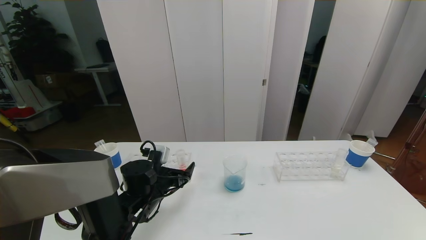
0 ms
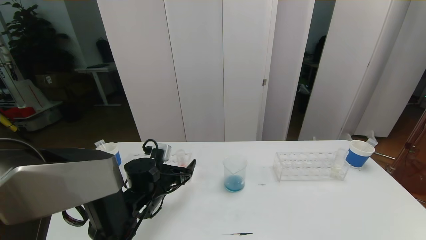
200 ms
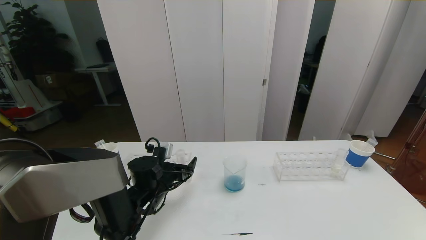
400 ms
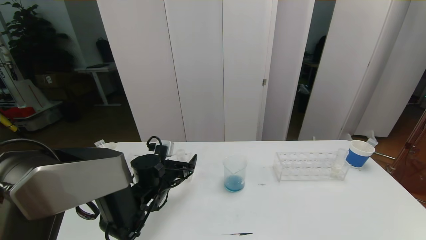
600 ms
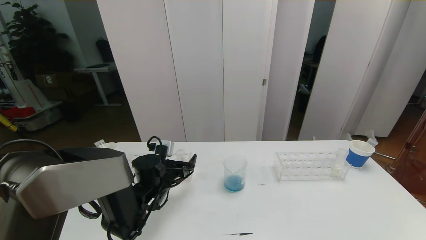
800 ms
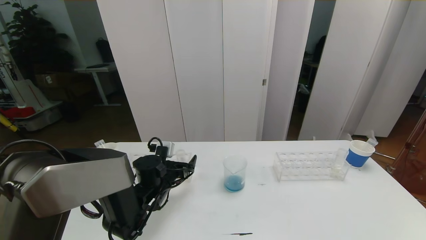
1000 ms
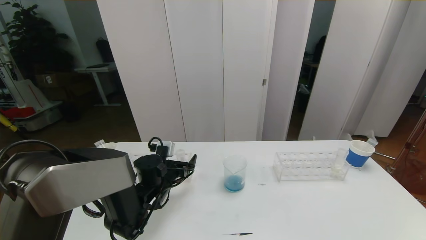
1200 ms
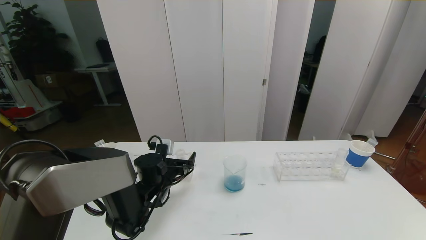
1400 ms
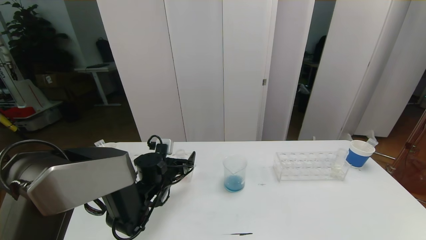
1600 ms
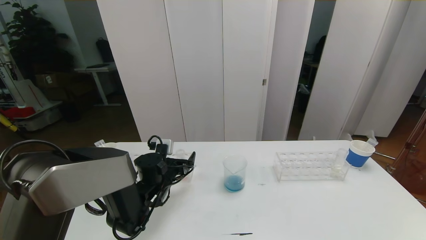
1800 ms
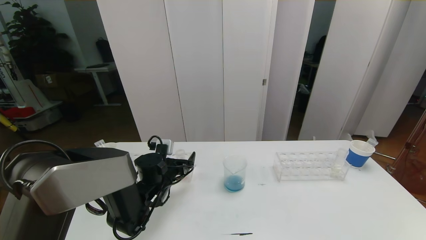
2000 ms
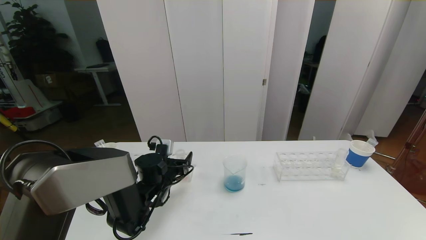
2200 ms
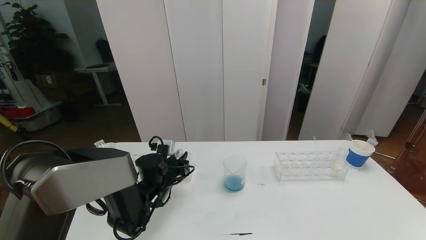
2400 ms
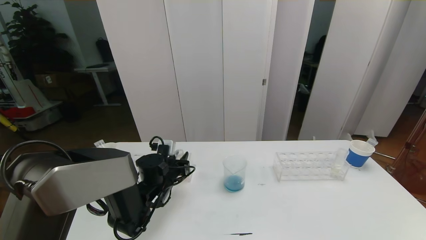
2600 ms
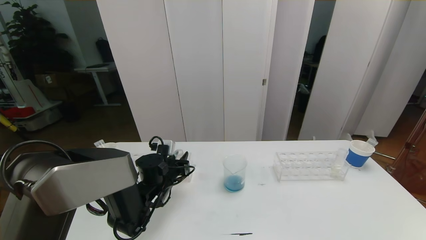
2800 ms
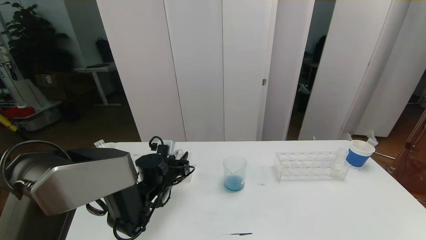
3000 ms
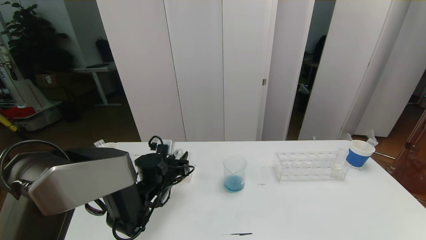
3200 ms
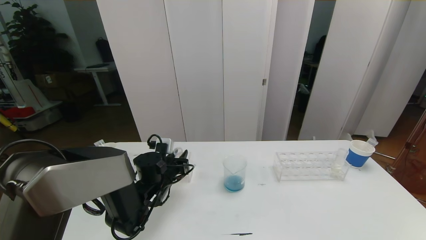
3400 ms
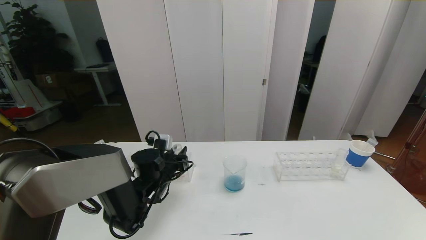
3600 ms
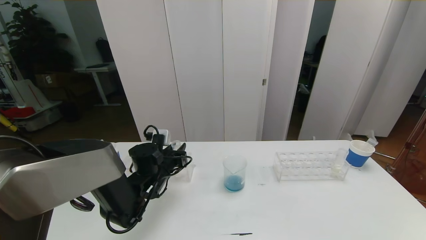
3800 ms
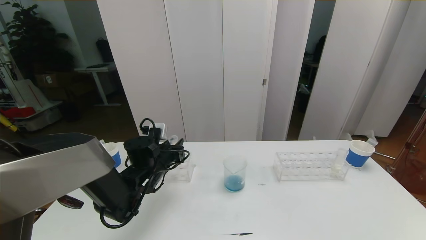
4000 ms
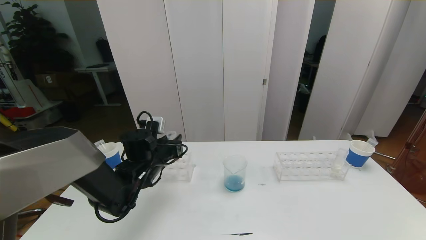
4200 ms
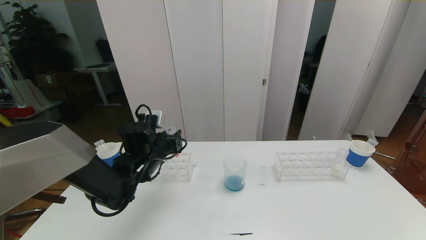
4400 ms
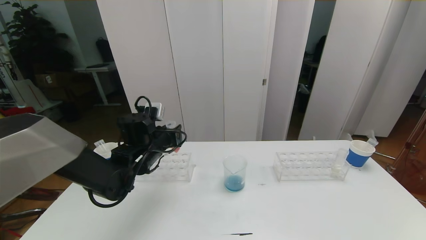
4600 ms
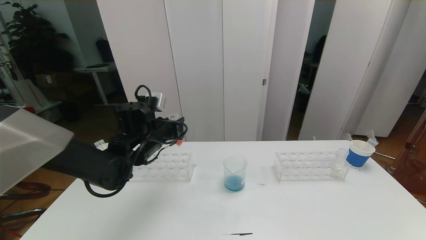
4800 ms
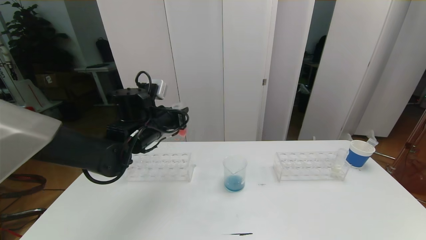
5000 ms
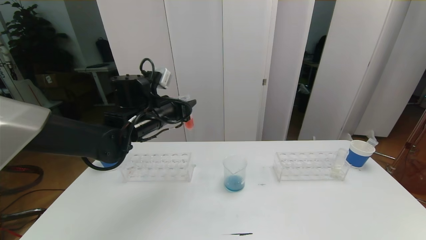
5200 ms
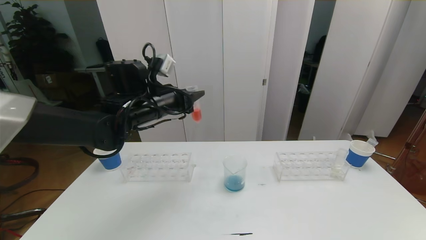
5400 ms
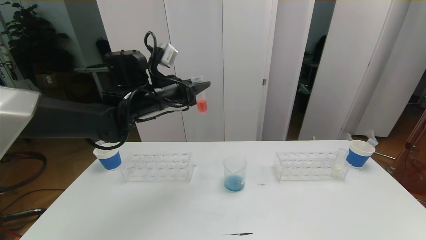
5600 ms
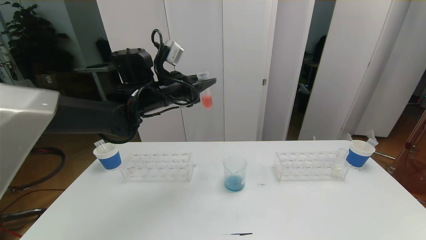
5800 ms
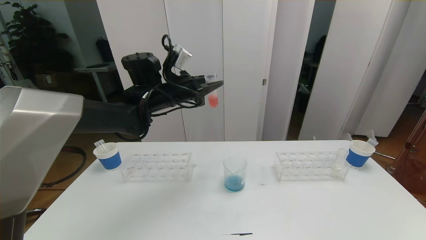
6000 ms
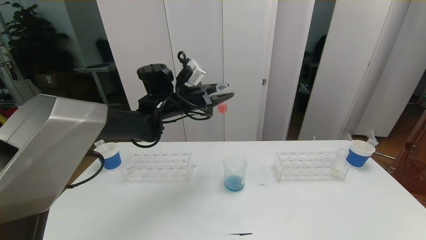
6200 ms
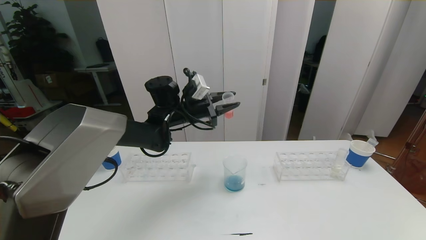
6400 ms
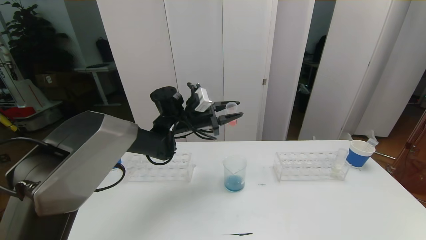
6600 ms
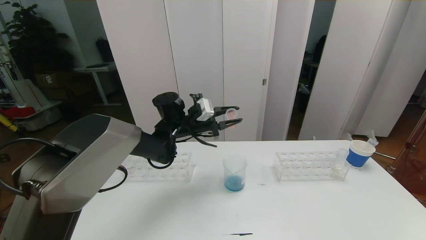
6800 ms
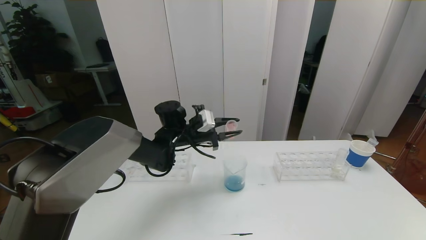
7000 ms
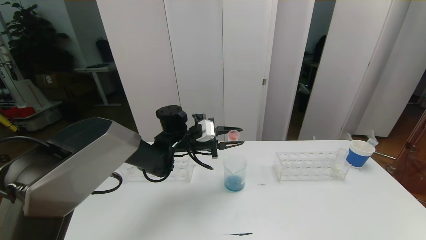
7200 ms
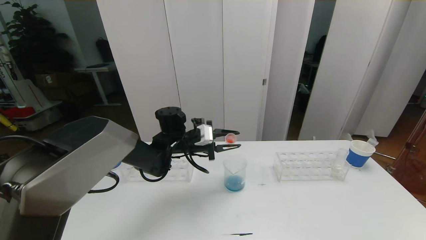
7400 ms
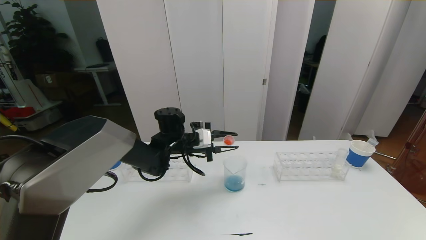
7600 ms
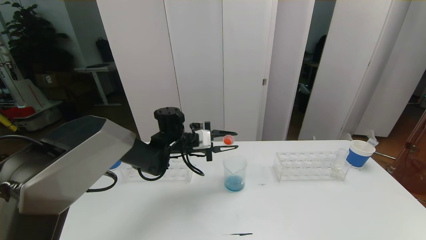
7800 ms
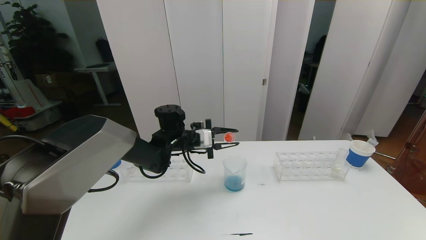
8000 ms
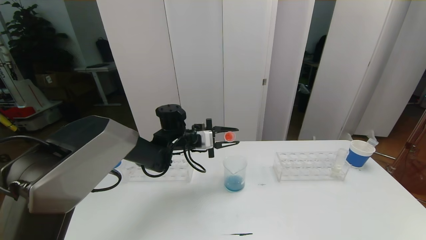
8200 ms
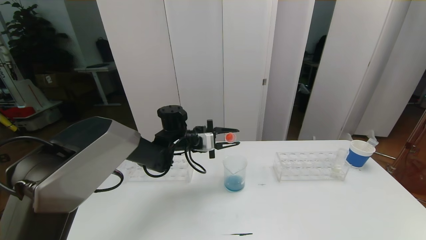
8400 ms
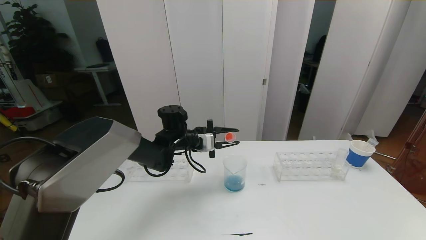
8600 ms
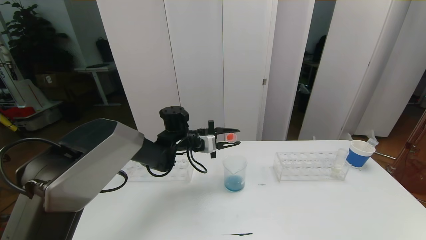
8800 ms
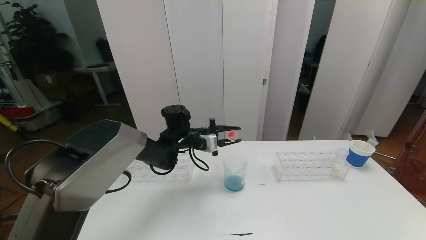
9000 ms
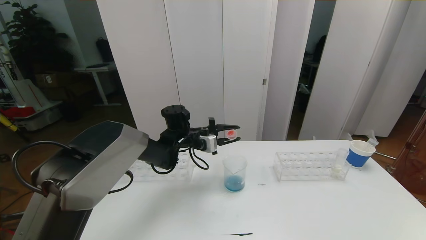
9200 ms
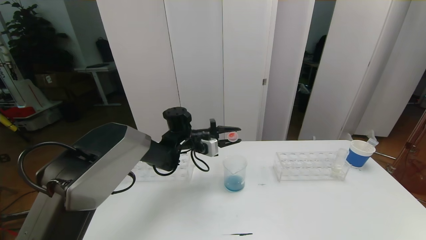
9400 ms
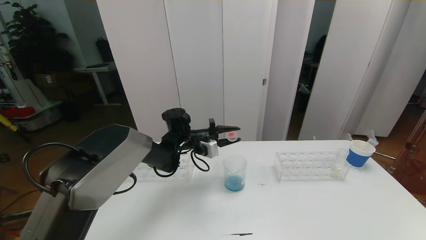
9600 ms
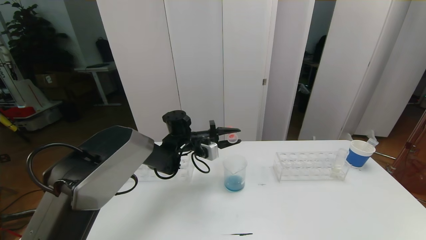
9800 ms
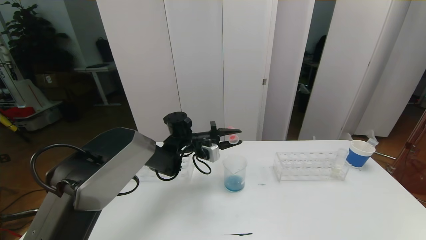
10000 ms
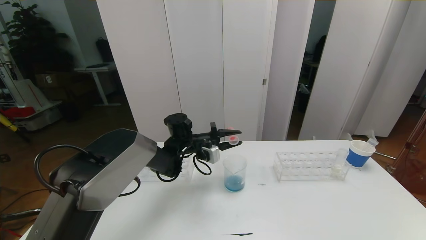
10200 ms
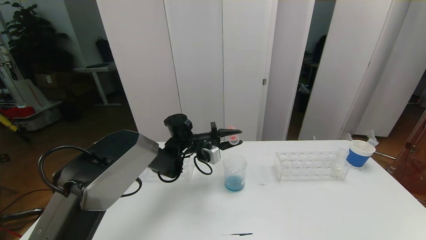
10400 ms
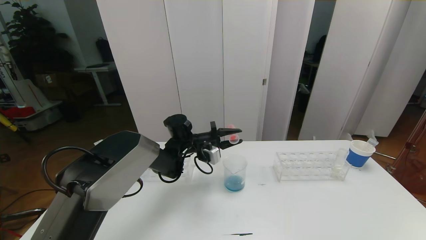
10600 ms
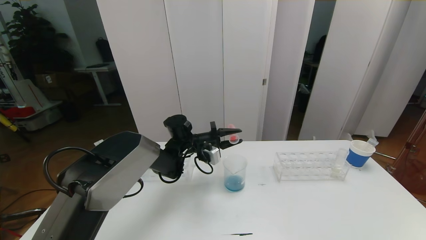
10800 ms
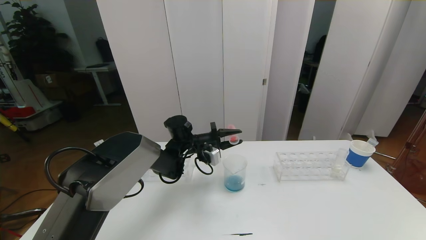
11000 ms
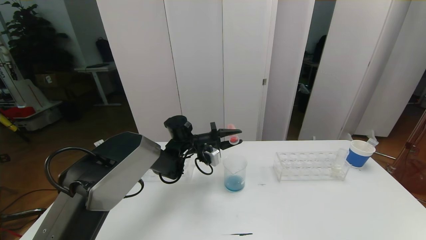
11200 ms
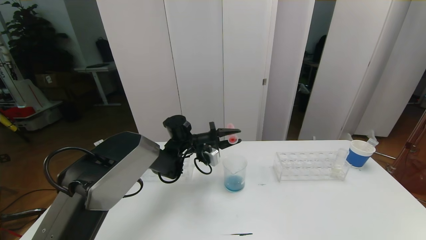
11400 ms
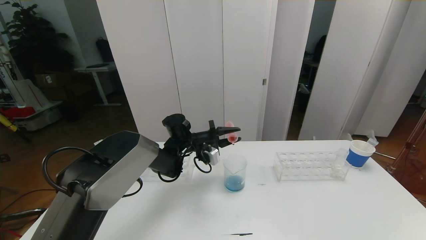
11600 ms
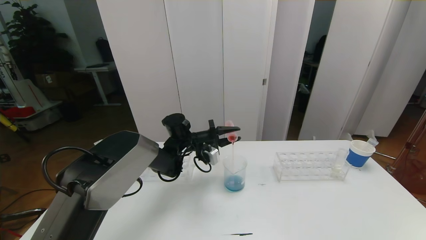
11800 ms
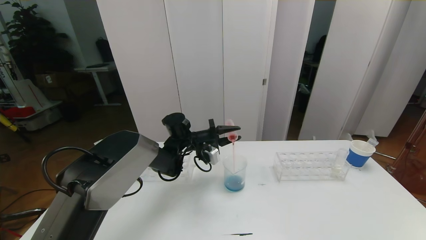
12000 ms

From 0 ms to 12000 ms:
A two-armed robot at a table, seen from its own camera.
Task of the whole recording: pick up the test tube with red pigment the test tube with blue pigment and the test tube with white pigment by grippers and pour them into the beaker.
From 0 ms to 1600 ms: The grippers make only small movements.
From 1600 ms to 3000 ms: The left gripper closes.
From 3000 ms to 4400 ms: The left gripper shifts some 10 cm upward.
From 4400 ms to 6000 ms: The left gripper moves upward and forward, about 15 cm.
From 6000 ms to 7600 ms: The left gripper travels downward by approximately 15 cm.
From 7600 ms to 9000 ms: The grippers make only small movements.
From 9000 ms to 10400 ms: There are only small adjustments of the grippers.
From 10400 ms to 12000 ms: There are only small adjustments of the grippers.

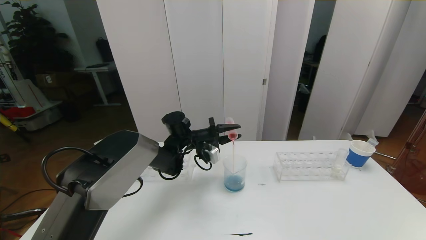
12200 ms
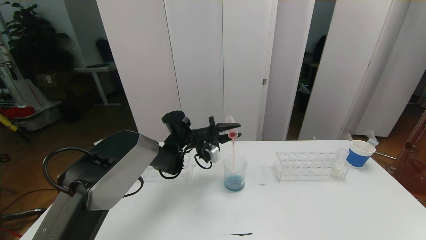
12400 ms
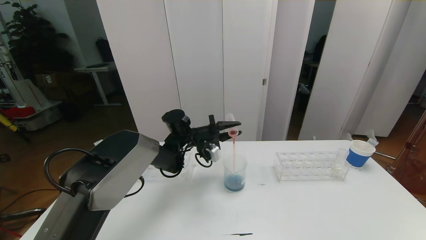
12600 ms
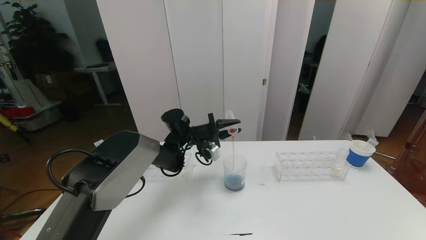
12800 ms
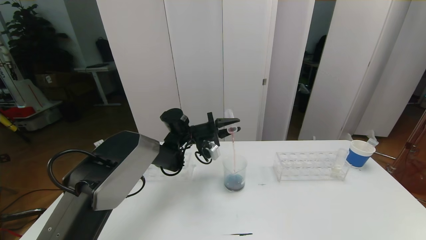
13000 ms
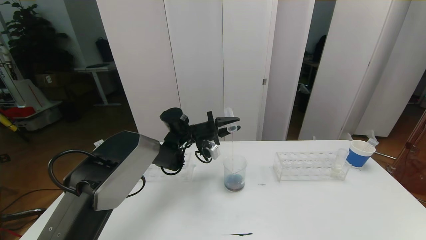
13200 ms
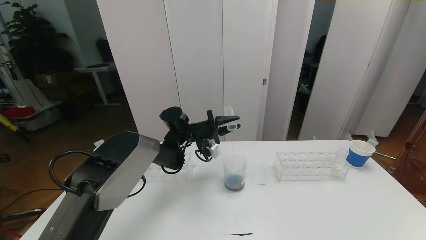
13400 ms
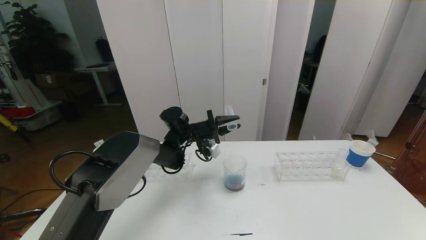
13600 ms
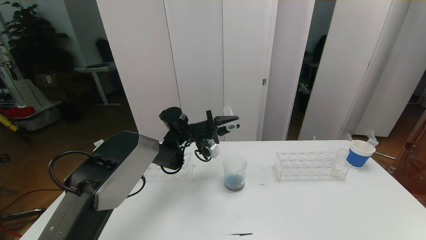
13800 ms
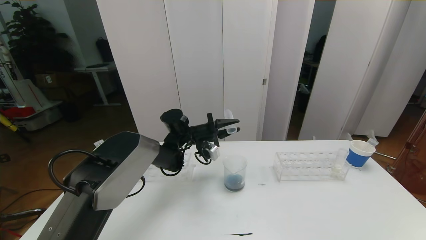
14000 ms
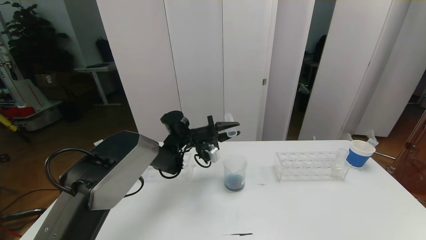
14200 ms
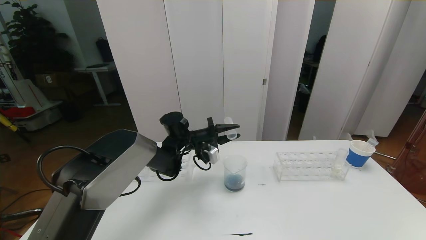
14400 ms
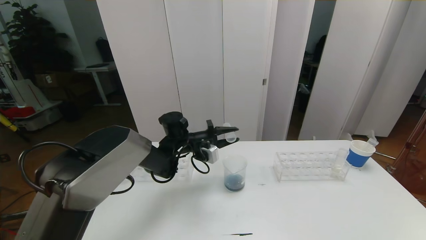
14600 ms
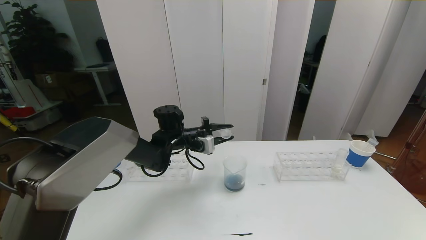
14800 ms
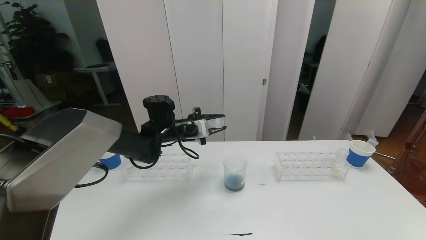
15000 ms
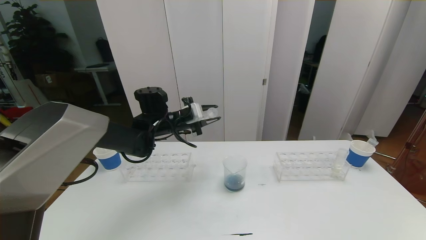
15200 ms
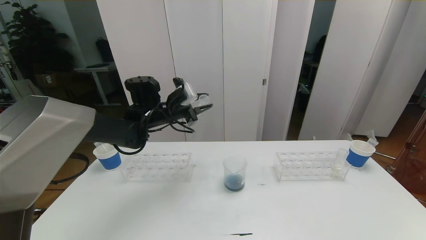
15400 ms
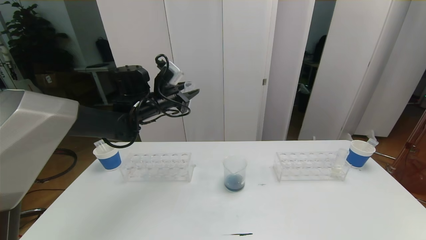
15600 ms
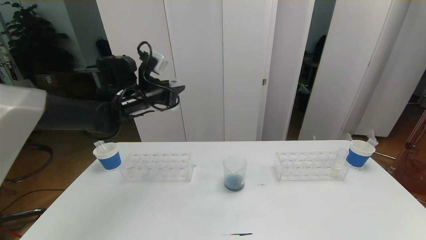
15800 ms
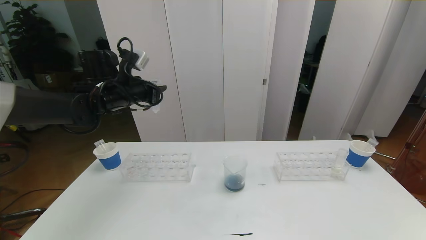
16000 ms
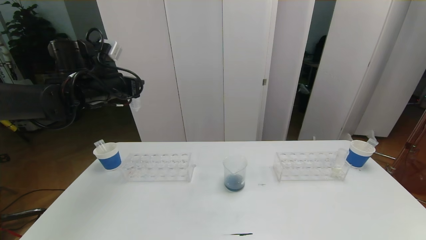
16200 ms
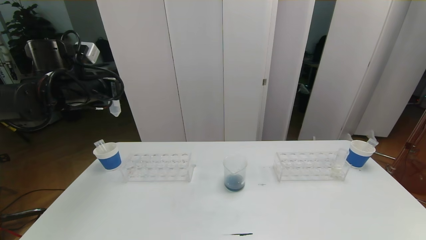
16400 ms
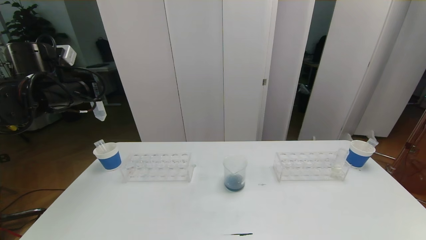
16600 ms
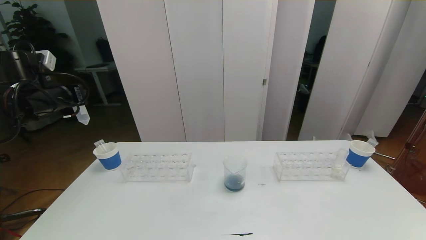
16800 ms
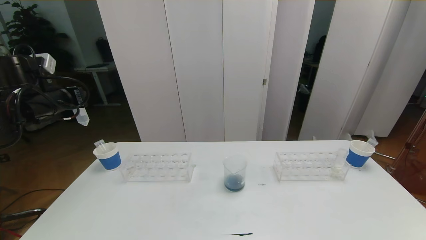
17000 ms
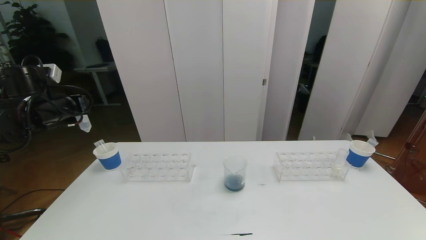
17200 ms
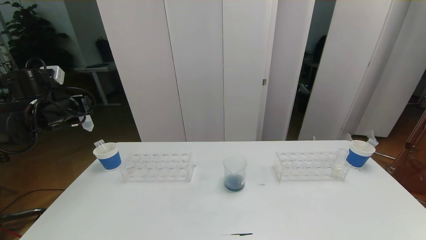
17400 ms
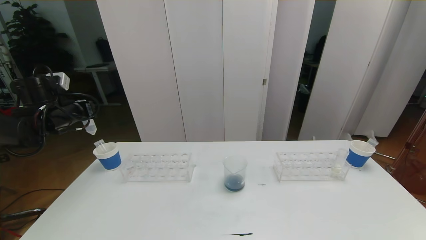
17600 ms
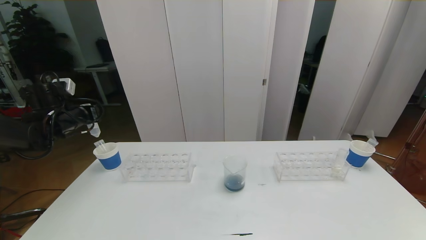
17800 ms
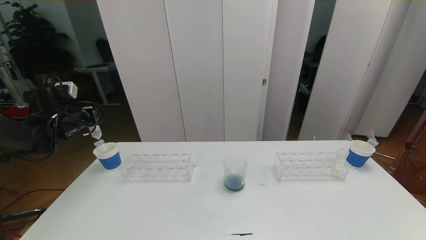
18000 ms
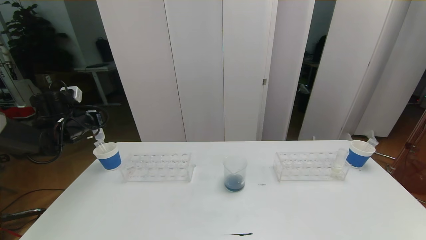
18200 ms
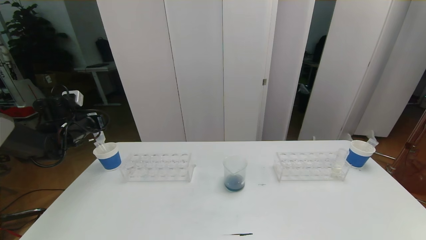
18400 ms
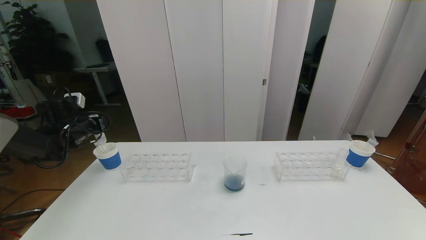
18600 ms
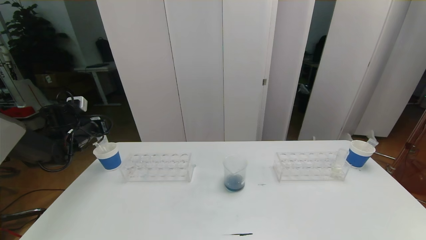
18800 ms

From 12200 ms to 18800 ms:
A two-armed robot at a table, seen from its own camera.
Task of the whole recording: pick up the test tube with red pigment the test tube with blue pigment and the test tube with white pigment by grippers and pour them into the beaker.
From 12200 ms to 13800 ms: The grippers move only a little.
From 13800 ms to 15400 ms: The left gripper moves upward and to the left, some 10 cm.
From 15400 ms to 17200 ms: The left gripper travels to the left by about 20 cm.
From 17200 ms to 18800 ms: The left gripper moves downward and forward, some 10 cm.
